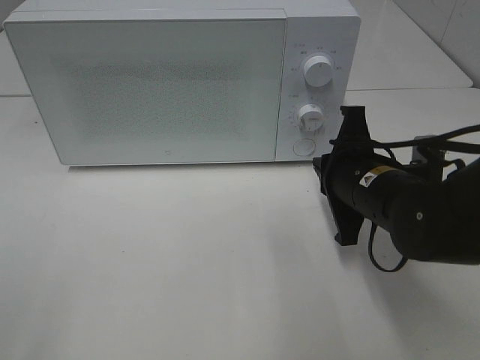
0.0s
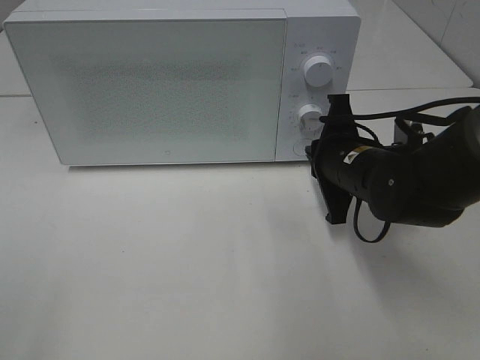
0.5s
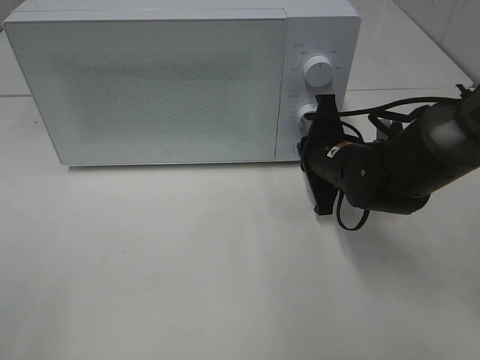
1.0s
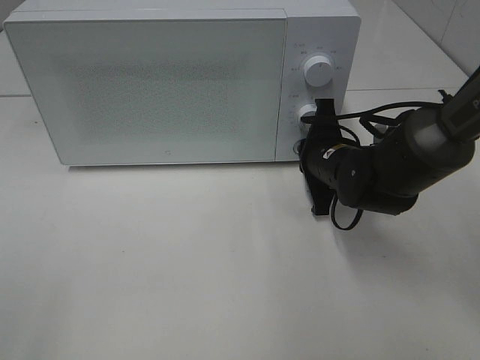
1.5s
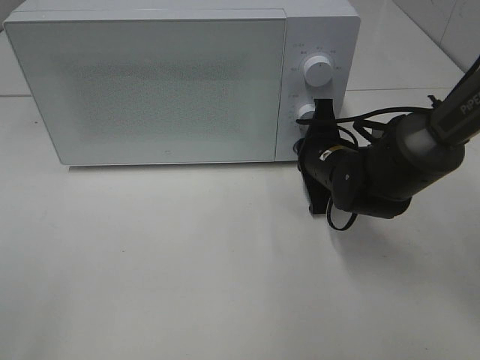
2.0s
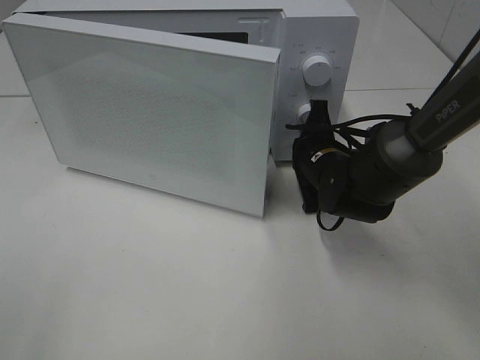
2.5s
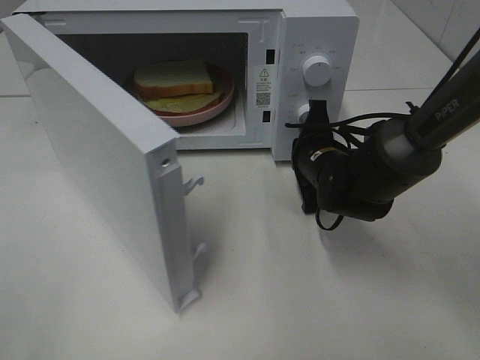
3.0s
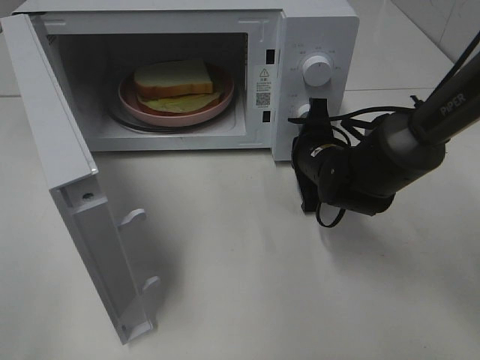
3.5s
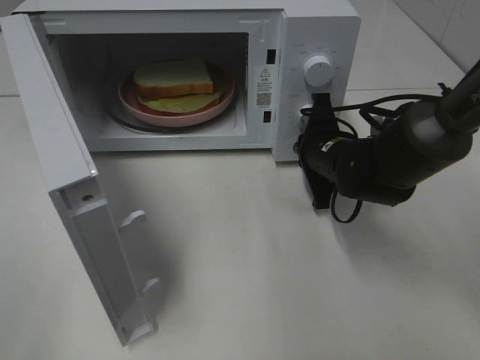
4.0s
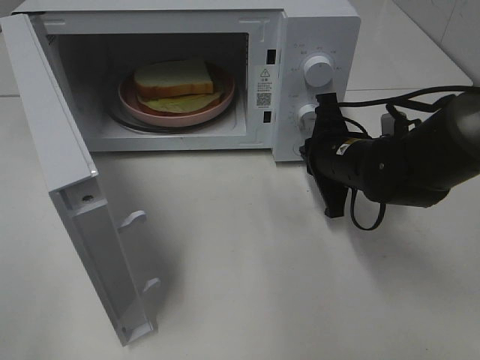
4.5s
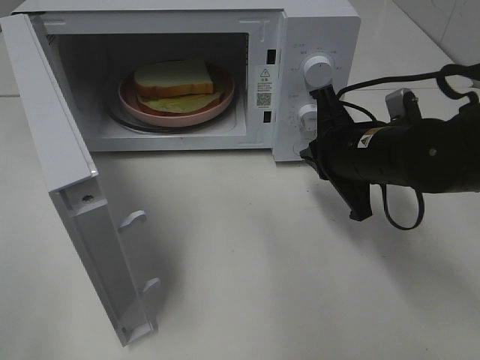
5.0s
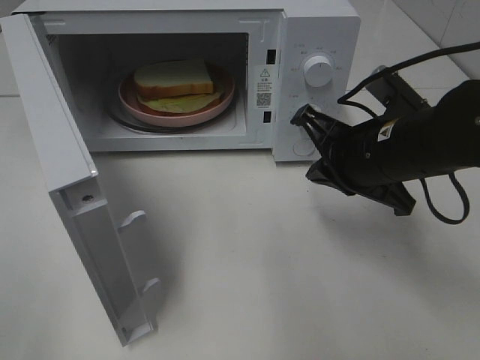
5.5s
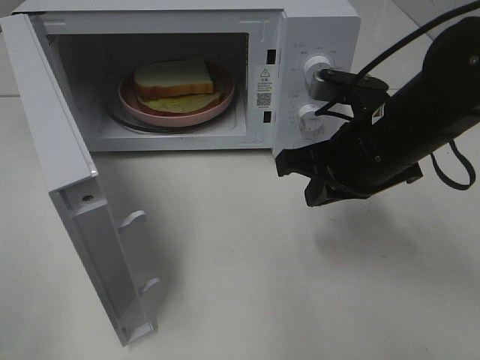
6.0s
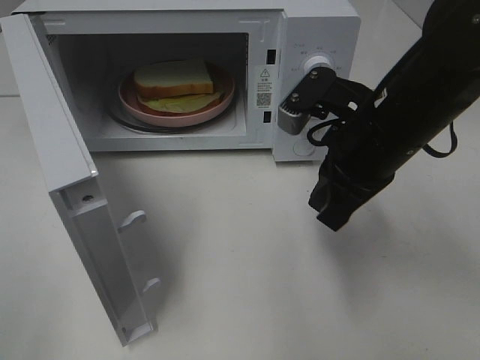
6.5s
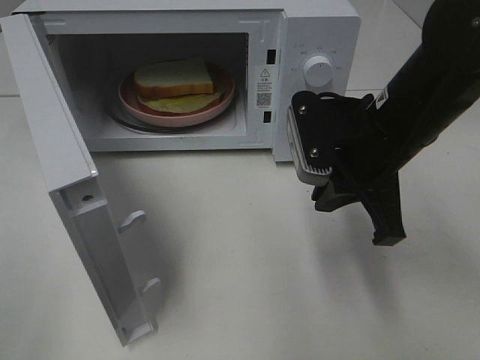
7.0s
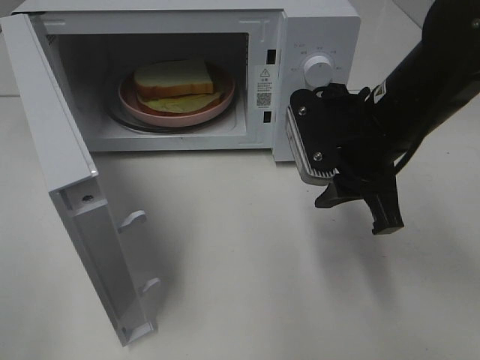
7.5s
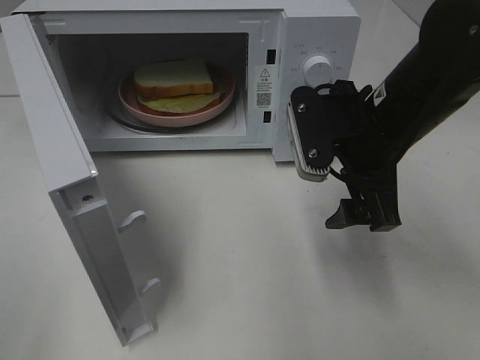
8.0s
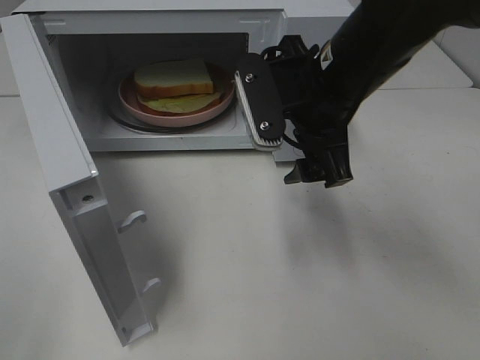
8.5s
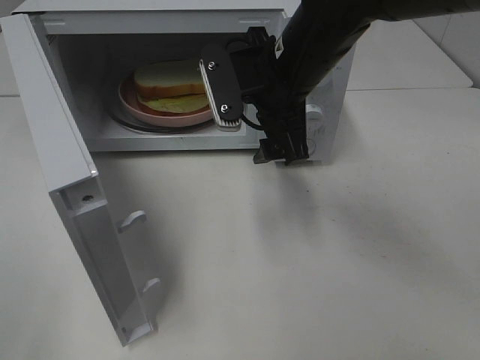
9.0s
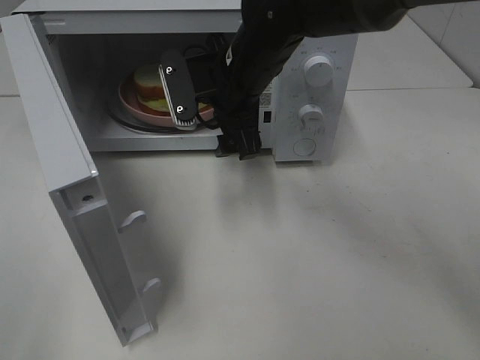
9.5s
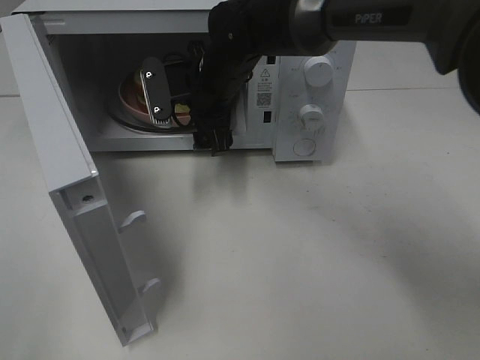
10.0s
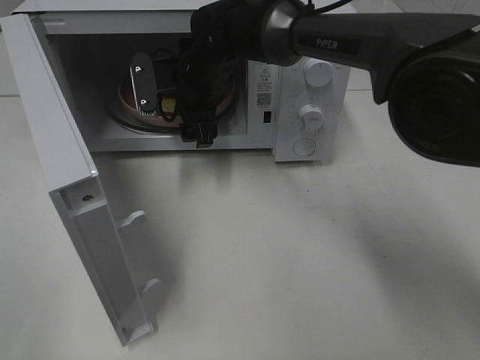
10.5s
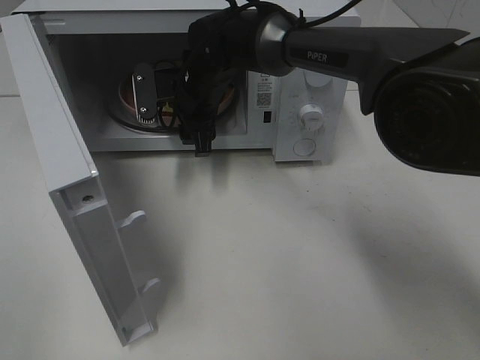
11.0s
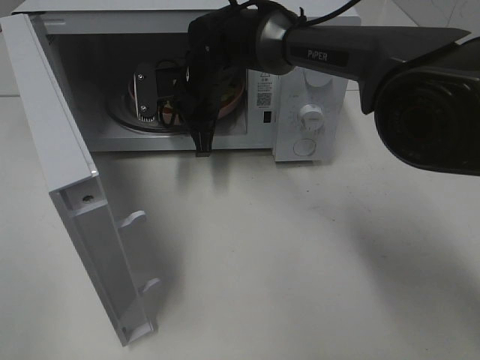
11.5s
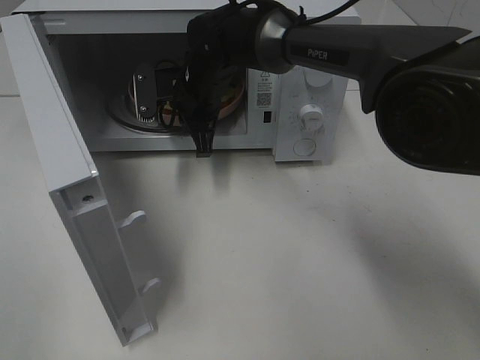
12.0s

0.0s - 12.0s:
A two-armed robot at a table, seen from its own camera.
Task of the whole recording: Heat Sandwich.
Step, 0.0s - 4.0s: Right hand: press the switch.
0.0s - 2.0s: The right gripper travels forward by roughly 10 cm.
4.0s - 6.0s: The right gripper heads upward and backward, covering about 15 cm.
6.0s - 8.0s: The right gripper opens up.
8.0s - 10.0s: The right gripper heads to the left and forward, covering approximately 20 cm.
10.0s - 12.0s: The right gripper closes up.

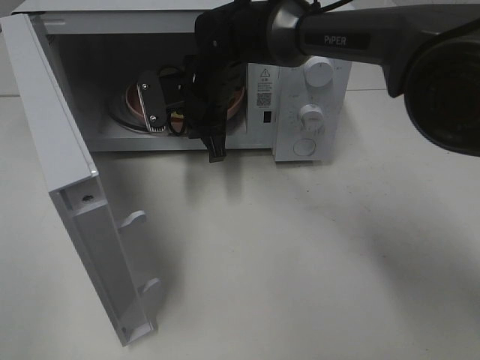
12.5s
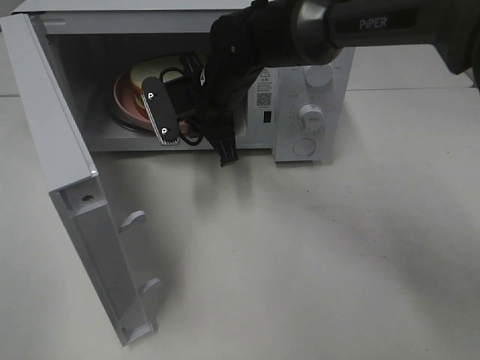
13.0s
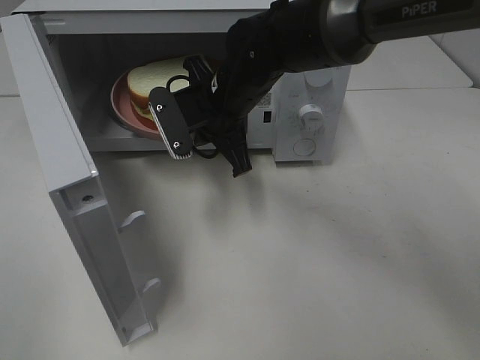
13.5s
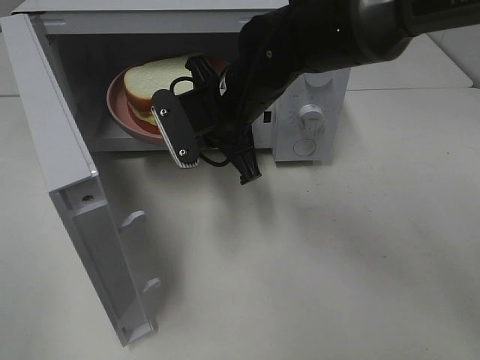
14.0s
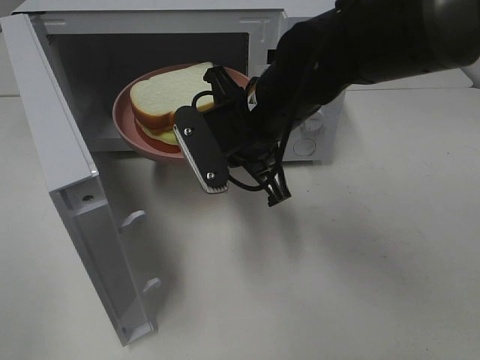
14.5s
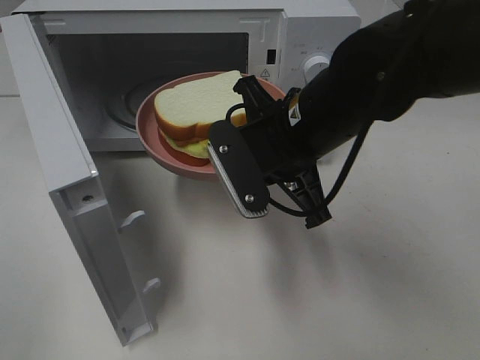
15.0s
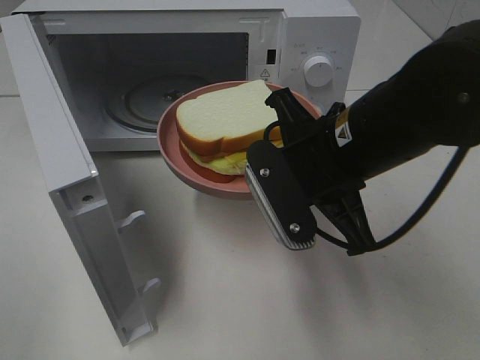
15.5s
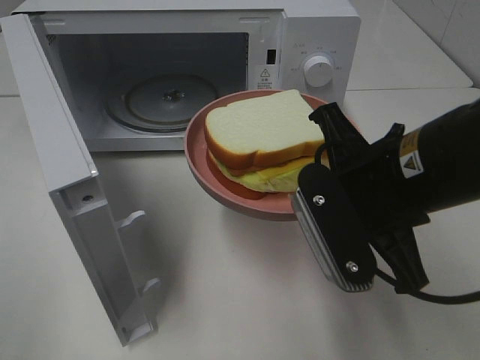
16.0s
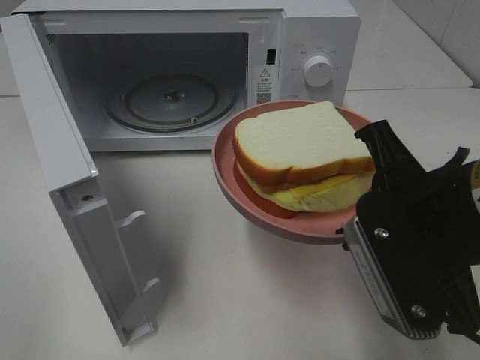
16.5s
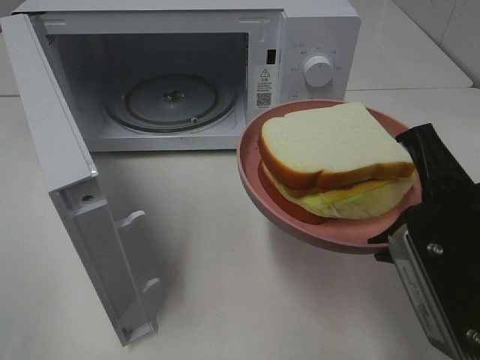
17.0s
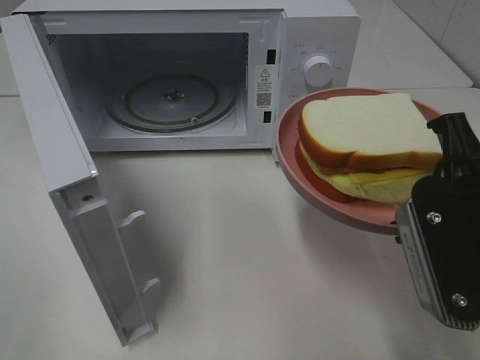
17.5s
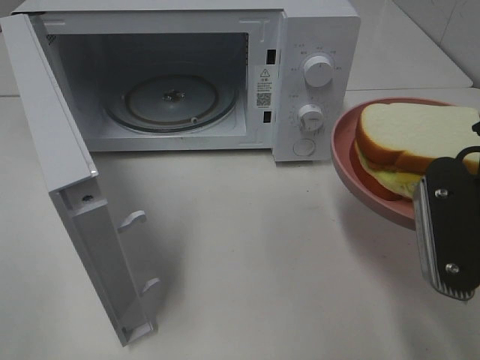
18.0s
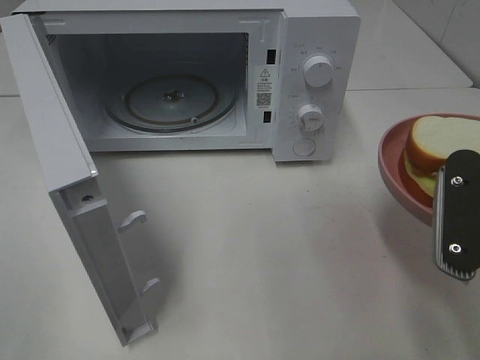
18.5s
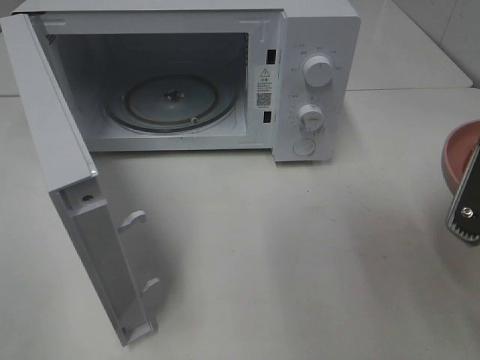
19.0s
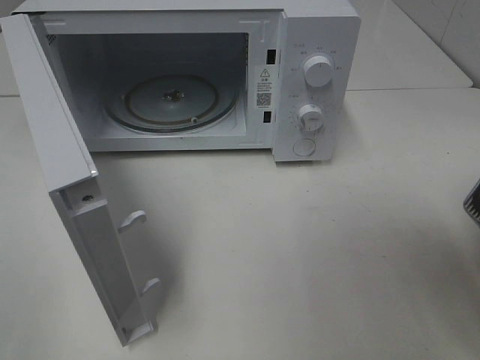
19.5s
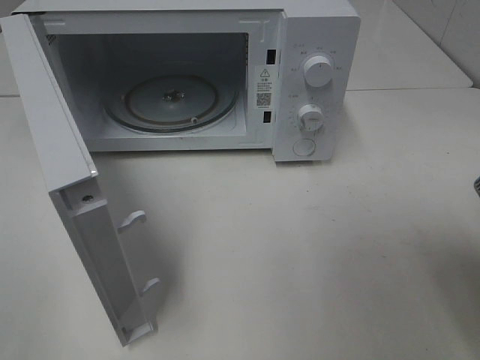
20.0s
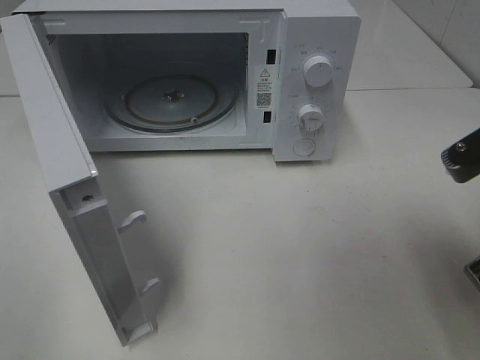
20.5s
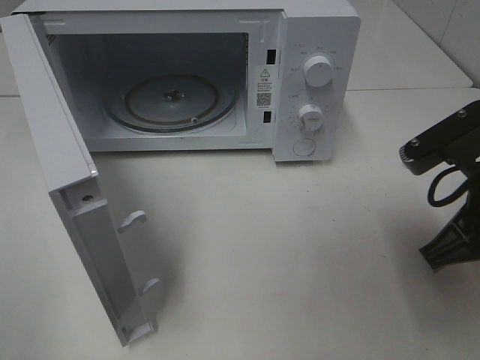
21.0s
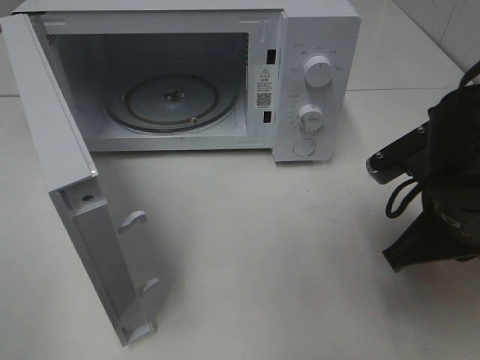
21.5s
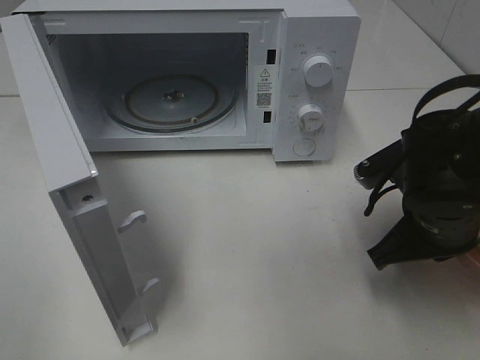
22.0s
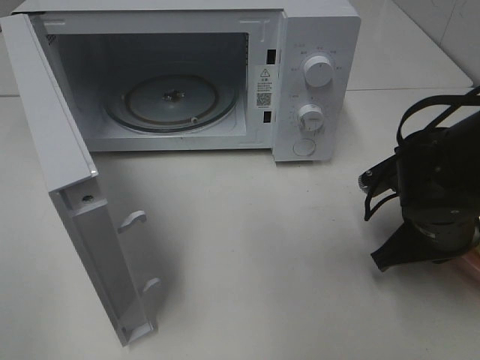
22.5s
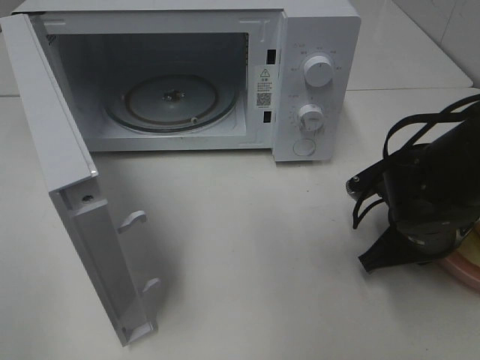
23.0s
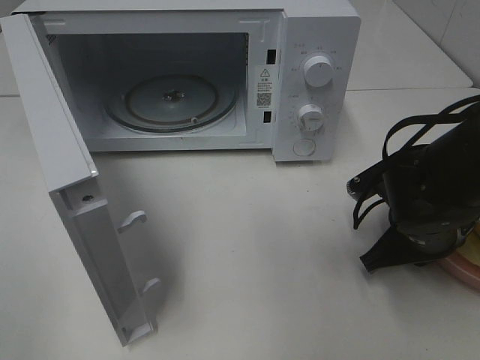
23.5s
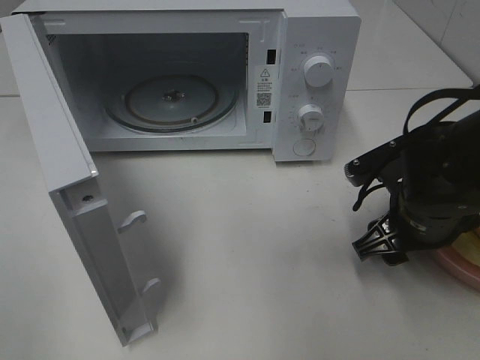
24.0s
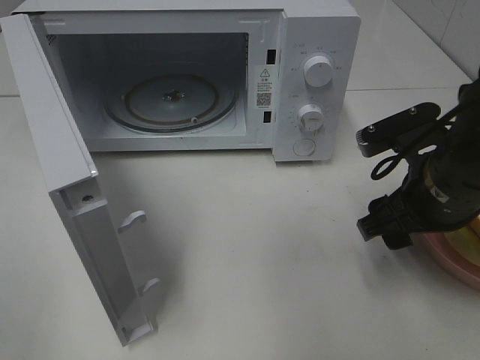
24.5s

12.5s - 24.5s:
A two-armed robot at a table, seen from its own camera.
Task of the whole recording: Heat Sandwich.
12.5s - 14.5s: The right gripper travels backward and to the right by roughly 15 cm.
14.5s - 16.5s: The right gripper travels backward and to the right by roughly 20 cm.
16.5s - 18.5s: The right gripper heads to the right, covering approximately 5 cm.
20.5s - 22.5s: The right gripper moves downward and forward, about 15 cm.
22.5s - 24.5s: The right gripper heads upward, covering about 5 cm, and opens its fingers.

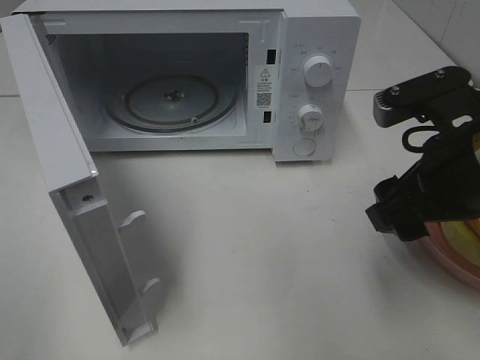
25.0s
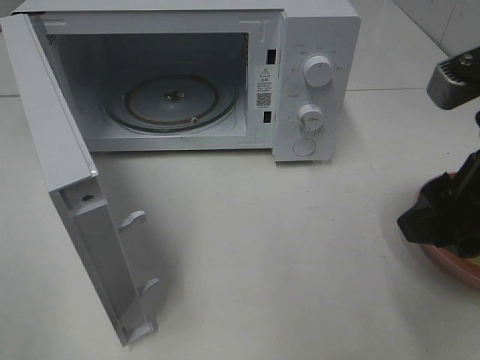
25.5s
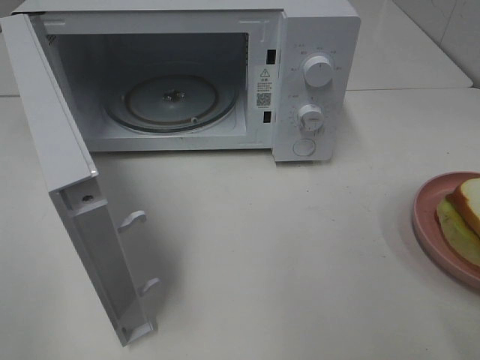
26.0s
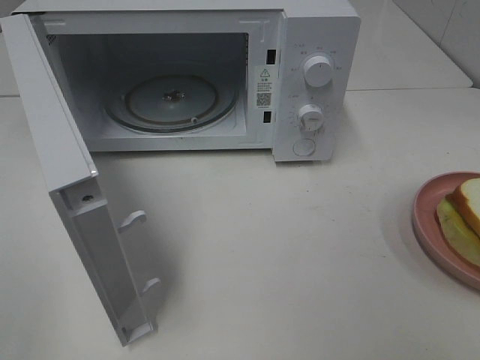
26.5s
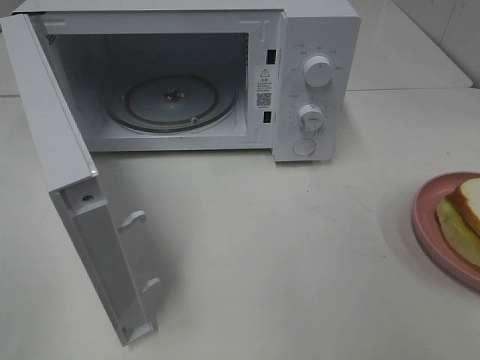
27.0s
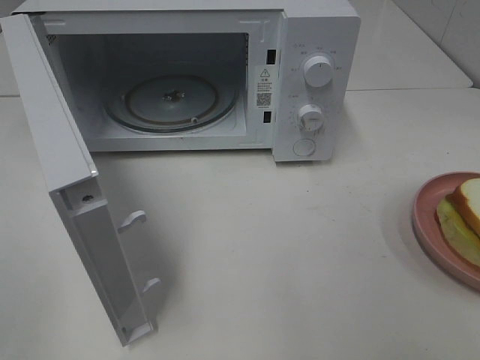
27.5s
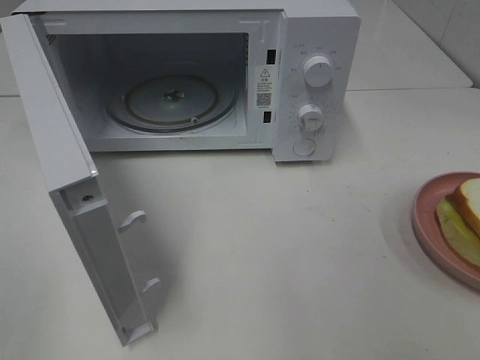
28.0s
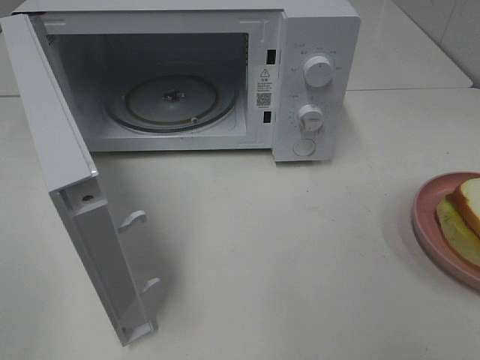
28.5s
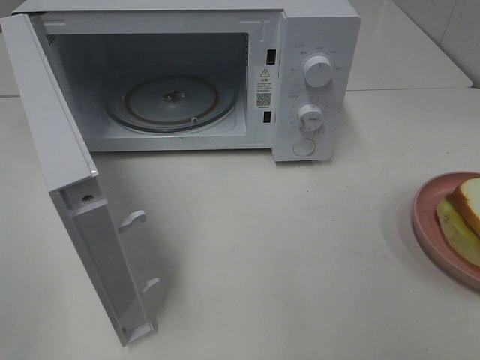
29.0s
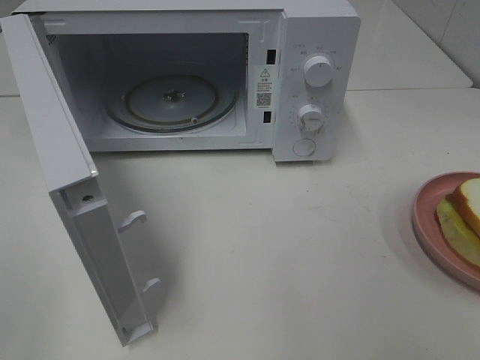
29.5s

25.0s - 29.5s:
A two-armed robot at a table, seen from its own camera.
Task of the whole recording: Heat Sandwich.
25.0s - 27.0s: The right gripper shifts approximately 20 cm backward and to the right.
